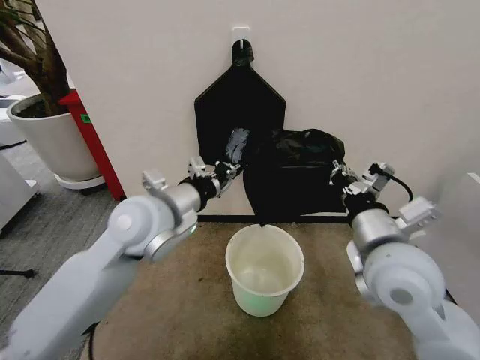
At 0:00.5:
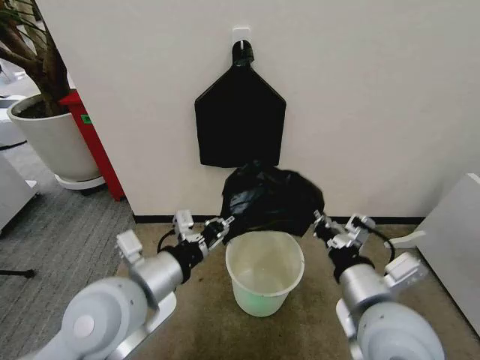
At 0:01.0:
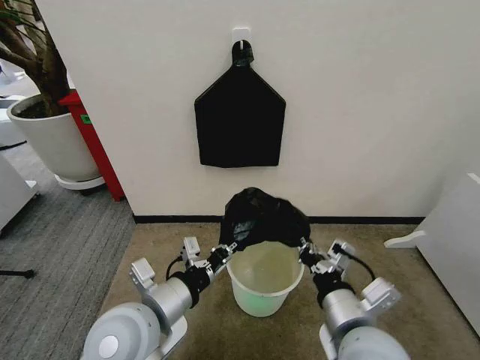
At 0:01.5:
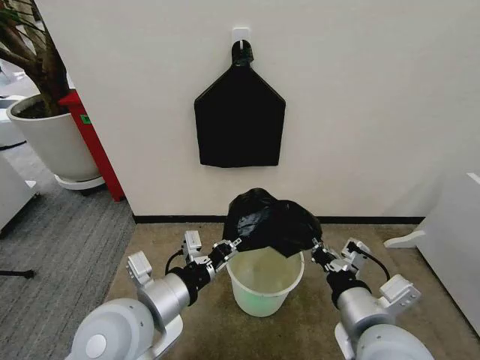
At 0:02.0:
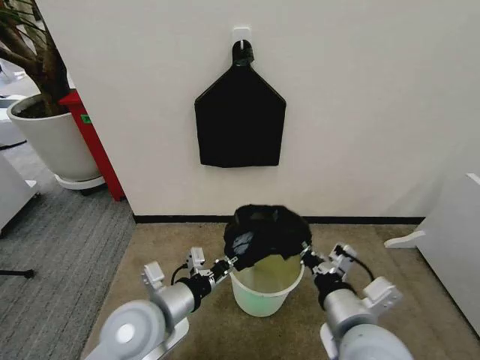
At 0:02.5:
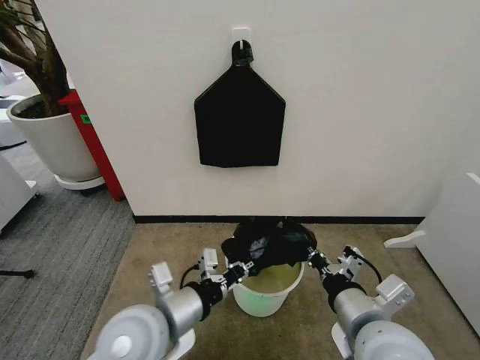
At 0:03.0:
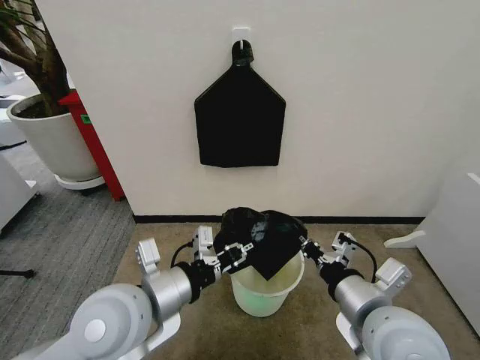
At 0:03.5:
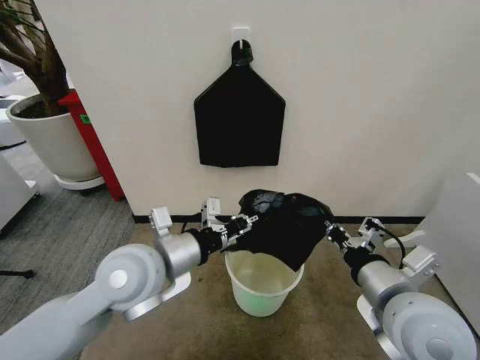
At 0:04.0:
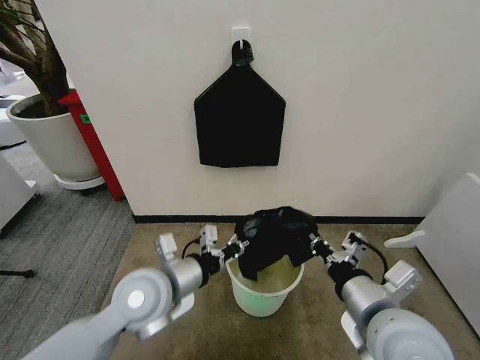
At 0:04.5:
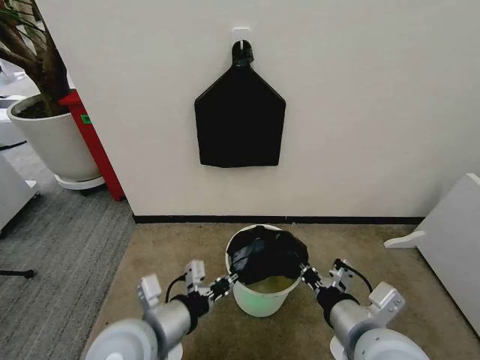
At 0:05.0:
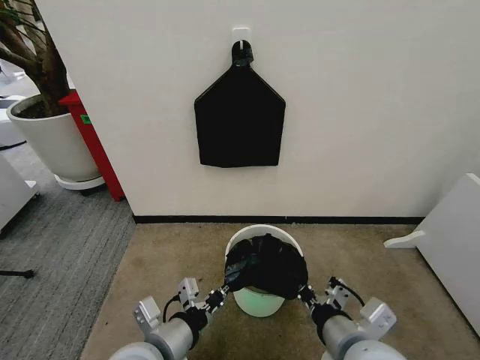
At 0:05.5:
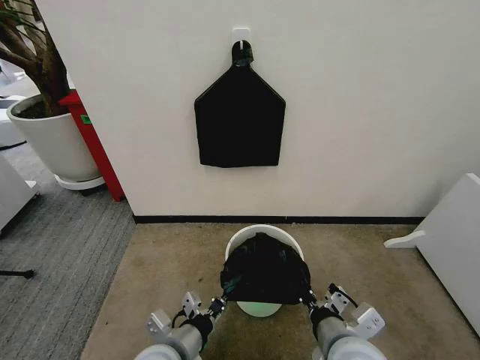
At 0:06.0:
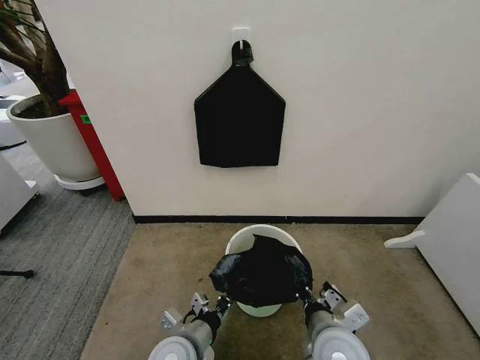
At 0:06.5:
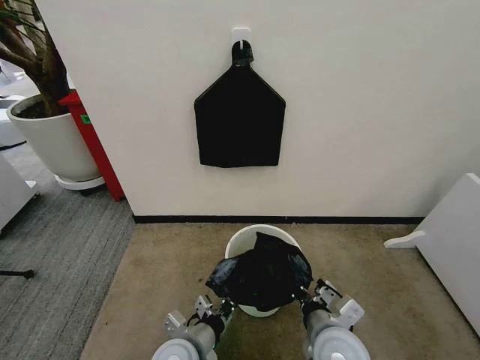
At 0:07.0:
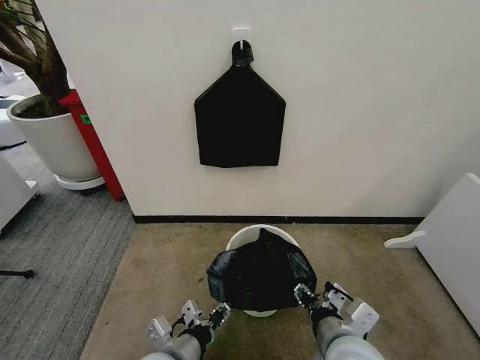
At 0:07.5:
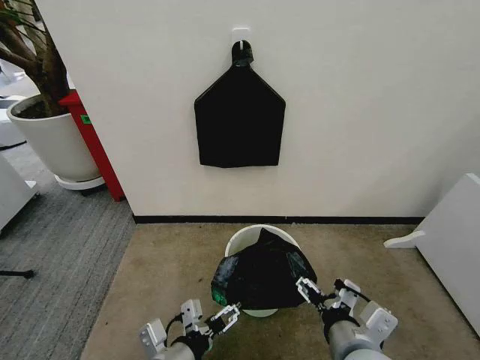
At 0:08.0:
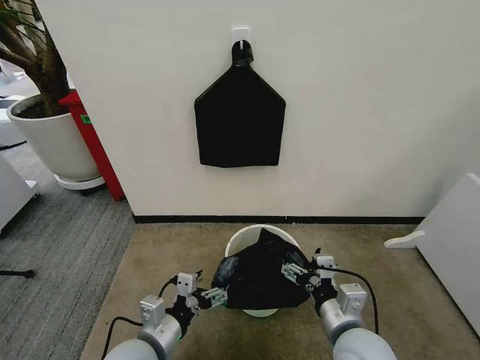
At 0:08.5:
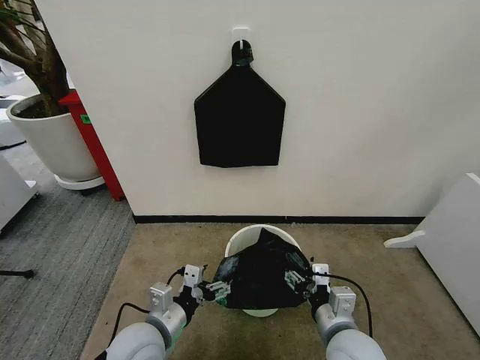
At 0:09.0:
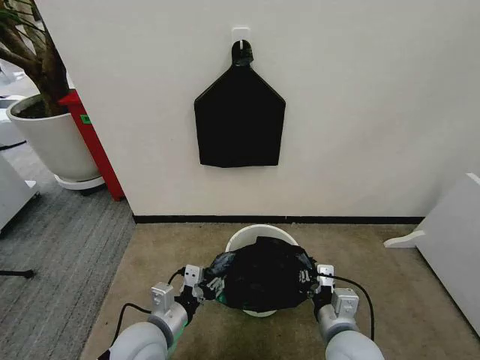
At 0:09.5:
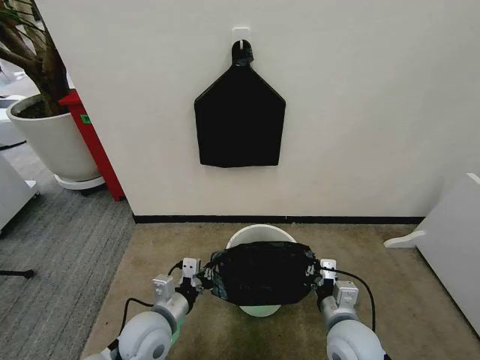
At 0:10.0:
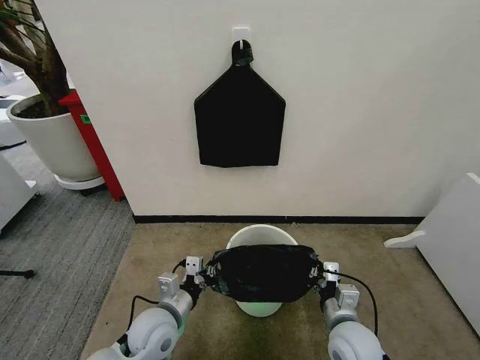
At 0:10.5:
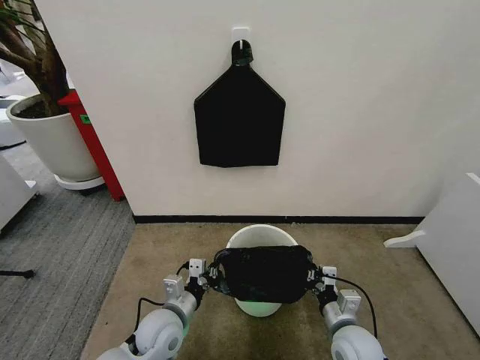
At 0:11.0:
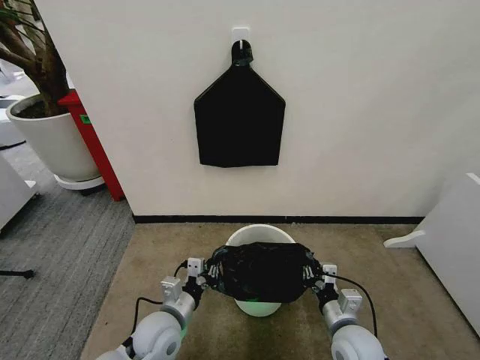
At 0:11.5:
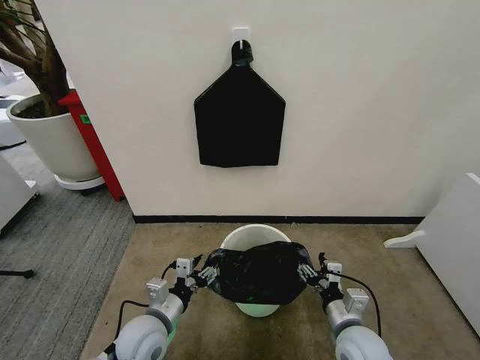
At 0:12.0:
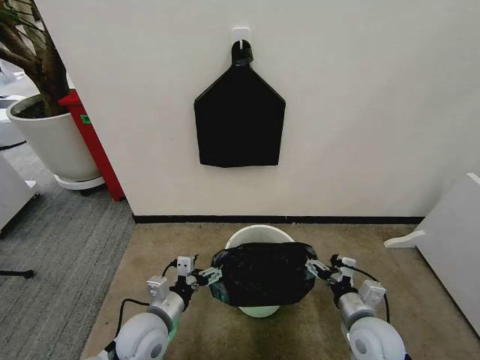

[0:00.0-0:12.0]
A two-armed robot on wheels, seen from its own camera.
Task of the whole recording: Place the garbage bag over the trash bin.
0:00.0 to 0:02.0: The right gripper is displaced backward and downward by about 10 cm. The left gripper is displaced downward and backward by about 20 cm.
0:04.0 to 0:06.0: The left gripper travels downward and backward by some 15 cm, while the right gripper shifts roughly 15 cm downward and to the left.
0:06.0 to 0:08.0: The left gripper is displaced to the left by some 5 cm, and opens up. The right gripper moves about 5 cm upward and comes back, and opens.
0:08.0 to 0:10.0: The left gripper shifts some 10 cm forward and downward, and closes, while the right gripper goes approximately 10 cm downward, and closes its fingers.
0:10.0 to 0:12.0: The left gripper opens. The right gripper opens.

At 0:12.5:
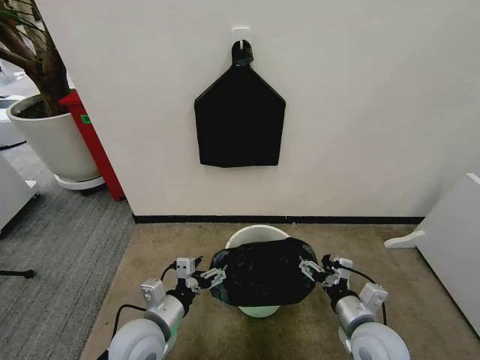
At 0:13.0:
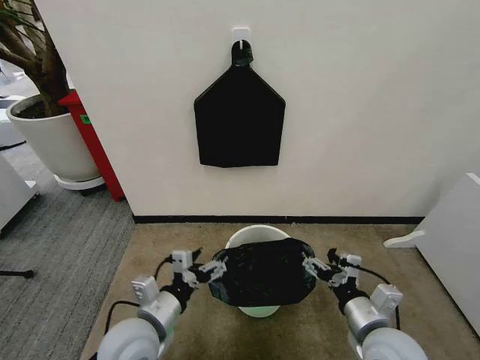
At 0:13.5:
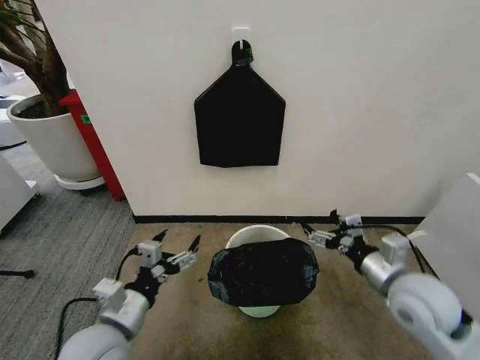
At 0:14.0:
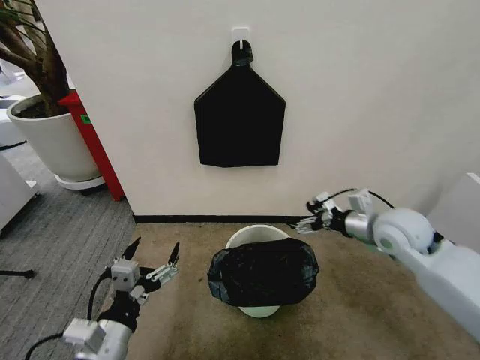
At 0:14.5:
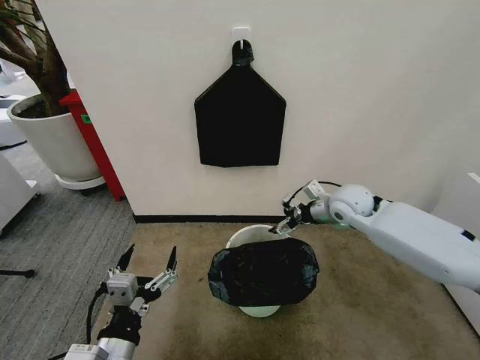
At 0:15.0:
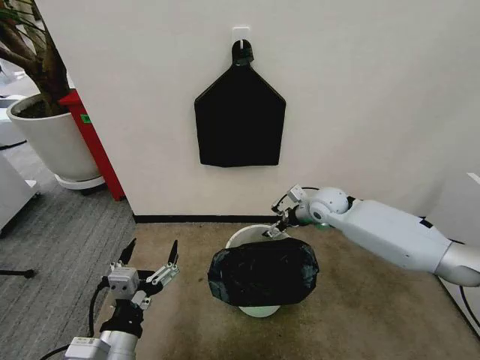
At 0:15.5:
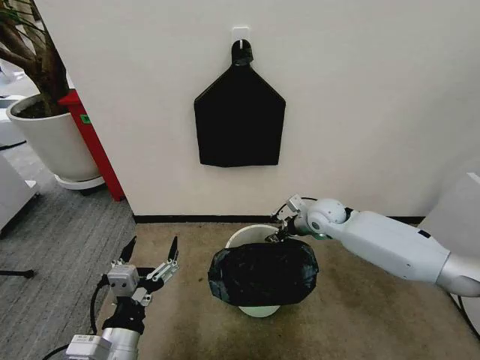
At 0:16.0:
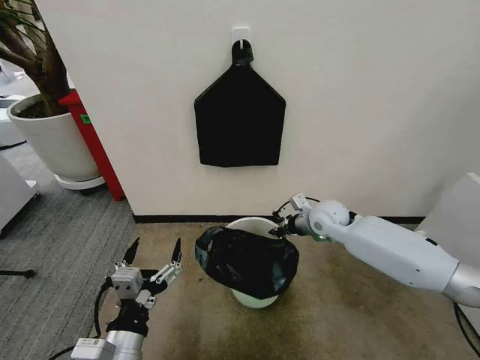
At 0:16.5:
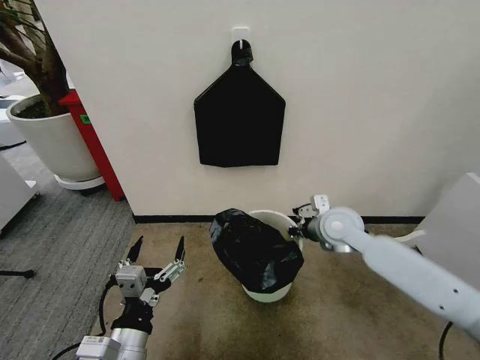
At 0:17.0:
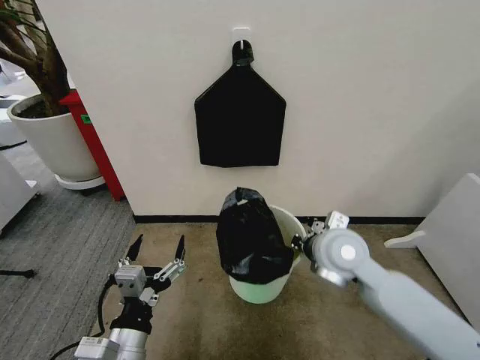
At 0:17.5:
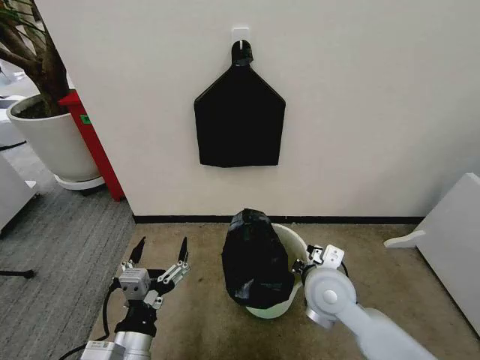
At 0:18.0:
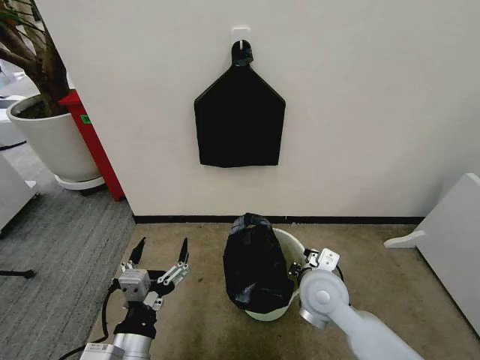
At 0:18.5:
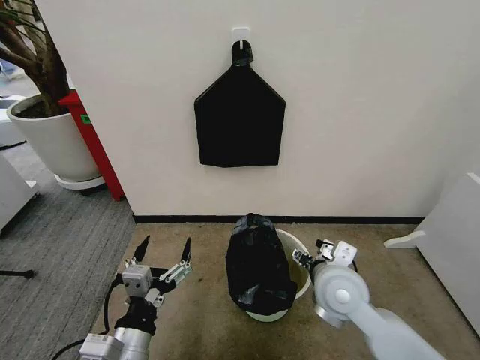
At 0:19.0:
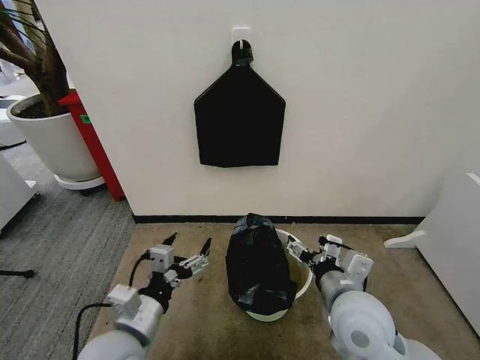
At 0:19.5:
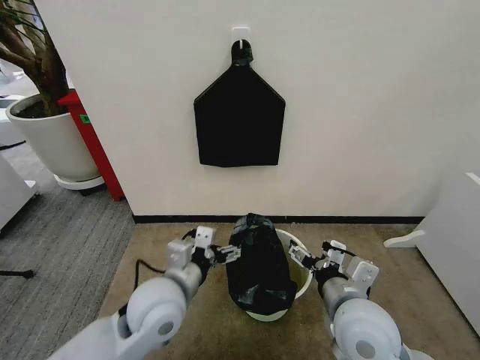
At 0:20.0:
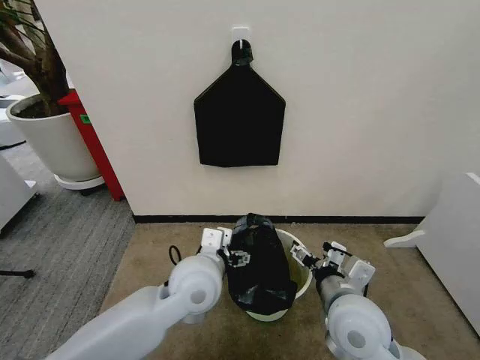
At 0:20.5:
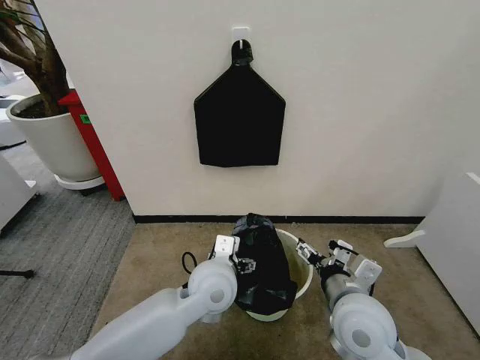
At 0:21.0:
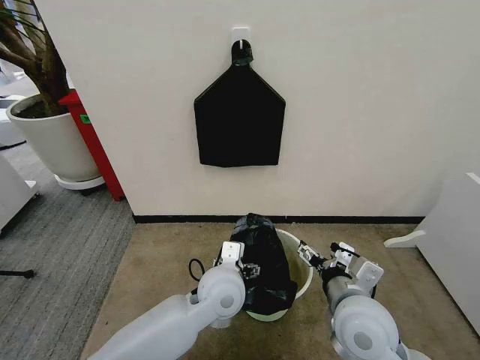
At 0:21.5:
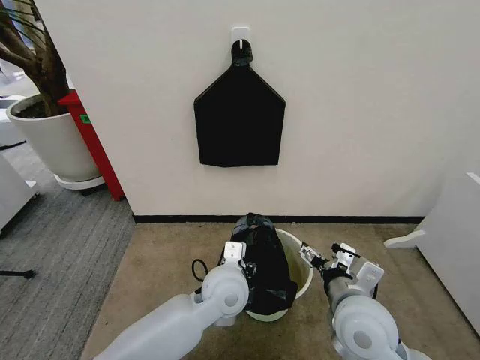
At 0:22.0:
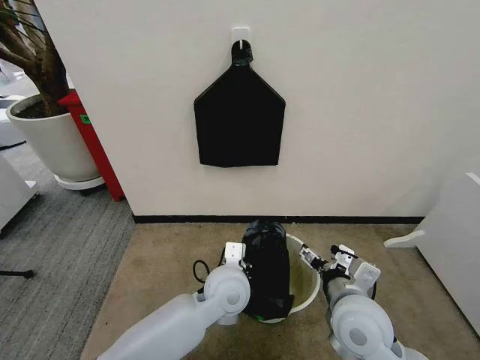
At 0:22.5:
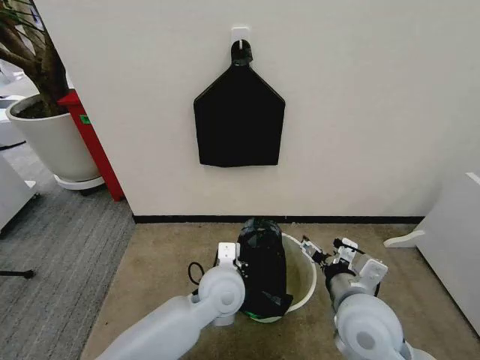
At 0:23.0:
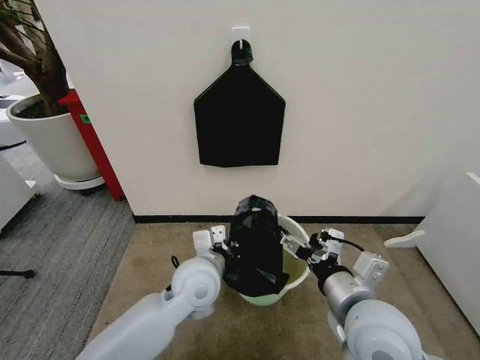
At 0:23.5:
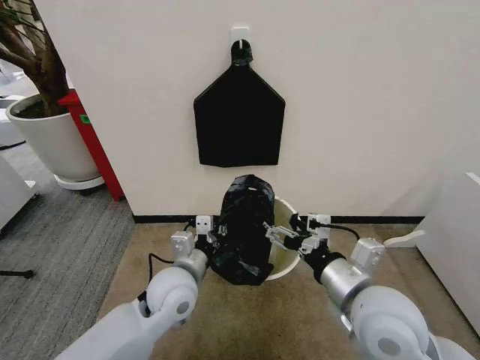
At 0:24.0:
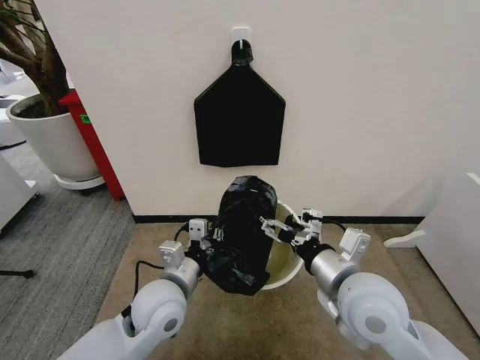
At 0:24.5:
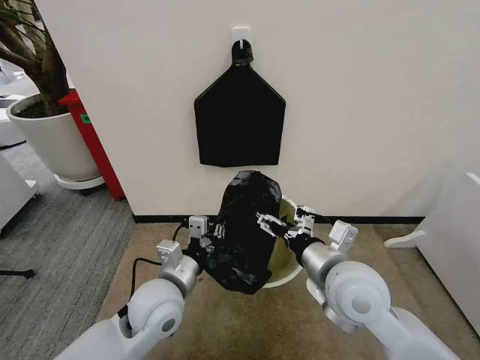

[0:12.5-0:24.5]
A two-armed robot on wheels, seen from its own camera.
Task of the whole recording: Place the garbage bag over the trash bin.
0:12.5 to 0:14.5: The left gripper is displaced backward and upward by some 10 cm. Meanwhile the right gripper travels forward and upward by some 30 cm.
0:14.5 to 0:16.5: The right gripper shifts by roughly 5 cm, and closes.
0:16.5 to 0:18.5: The right gripper heads backward, covering roughly 15 cm, and opens its fingers.
0:18.5 to 0:20.5: The right gripper goes approximately 5 cm backward, while the left gripper shifts some 20 cm forward and to the right.
0:20.5 to 0:22.5: The left gripper closes up.
0:22.5 to 0:24.5: The right gripper moves some 5 cm, while the left gripper travels to the left by approximately 10 cm.

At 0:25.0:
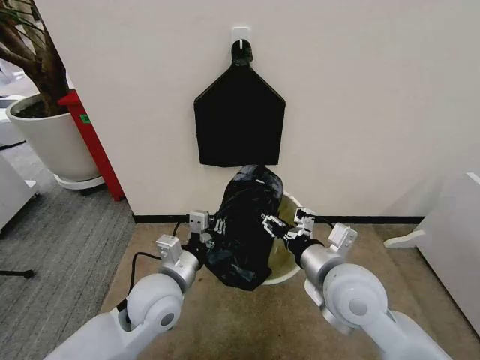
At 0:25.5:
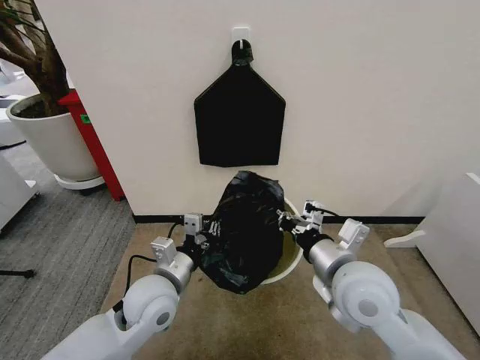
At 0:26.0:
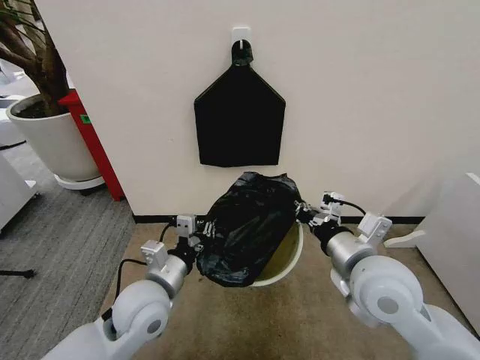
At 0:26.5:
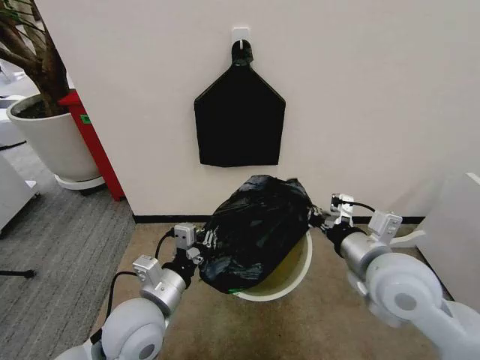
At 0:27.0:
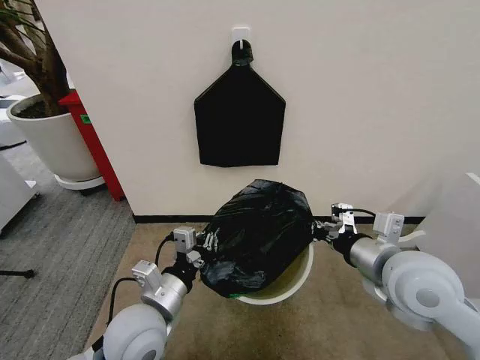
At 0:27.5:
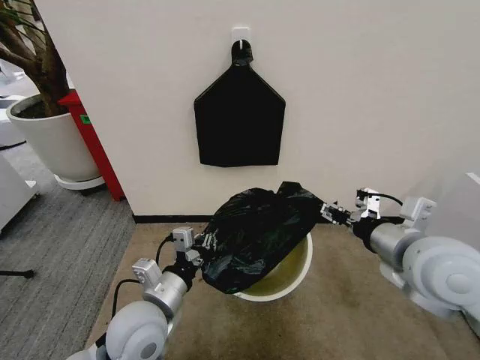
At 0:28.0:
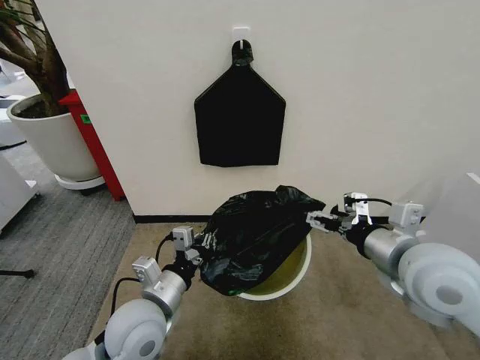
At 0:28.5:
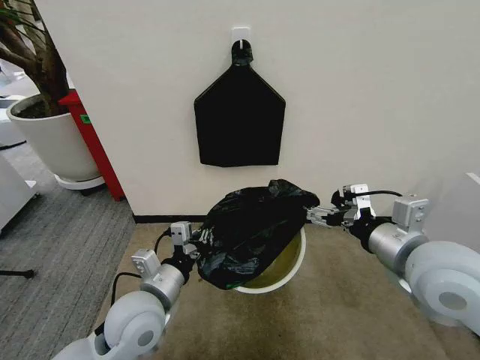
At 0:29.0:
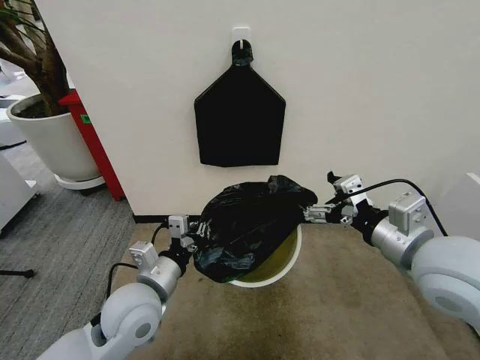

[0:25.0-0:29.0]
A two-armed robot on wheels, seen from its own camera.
Task of the whole recording: Place the garbage bag over the trash bin.
0:25.0 to 0:27.0: The right gripper moves to the right, about 10 cm, and closes up. The left gripper goes some 5 cm backward.
0:27.0 to 0:29.0: The right gripper changes place by some 5 cm, and opens up.
